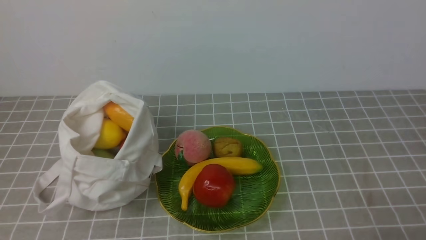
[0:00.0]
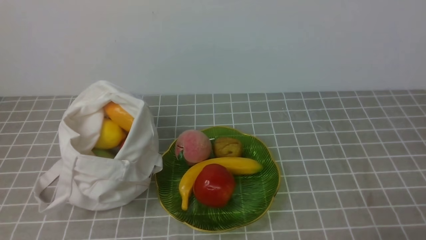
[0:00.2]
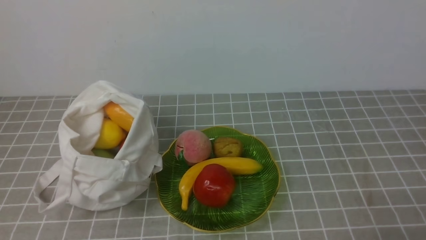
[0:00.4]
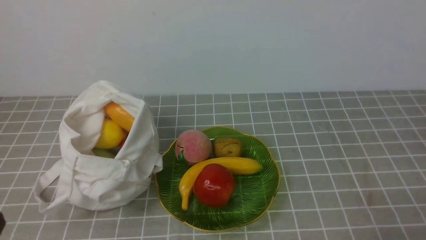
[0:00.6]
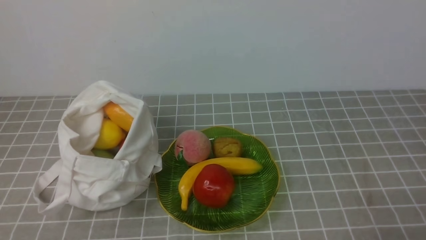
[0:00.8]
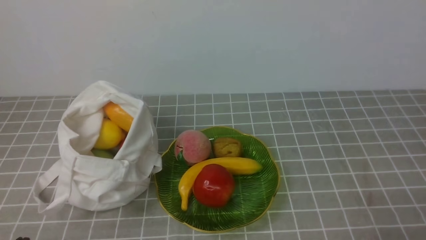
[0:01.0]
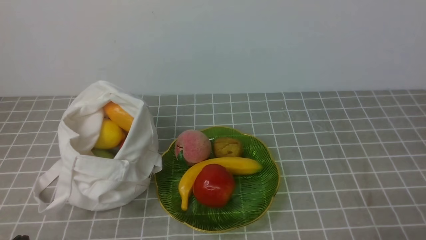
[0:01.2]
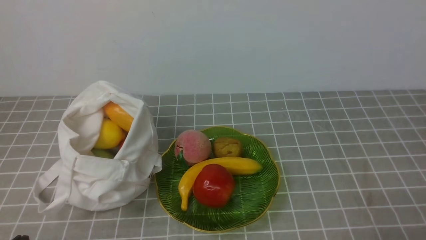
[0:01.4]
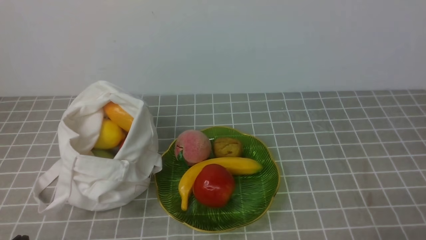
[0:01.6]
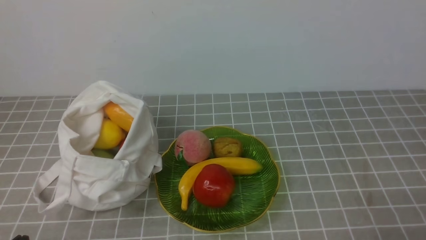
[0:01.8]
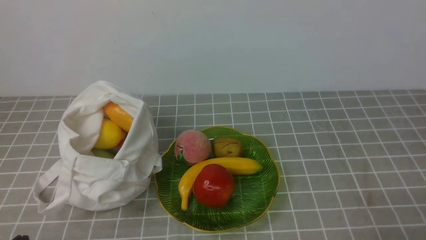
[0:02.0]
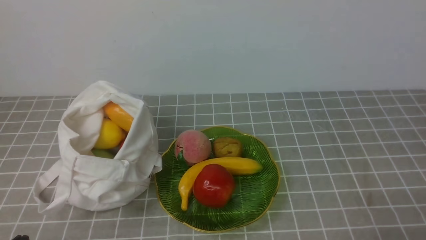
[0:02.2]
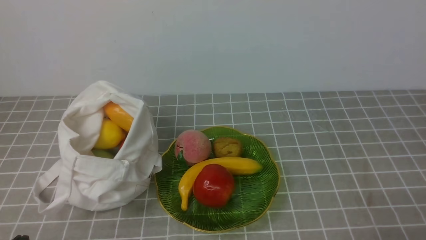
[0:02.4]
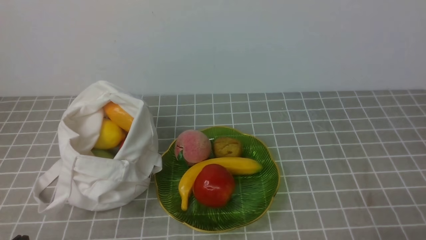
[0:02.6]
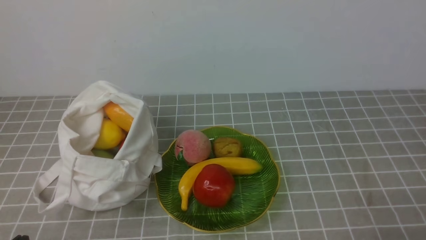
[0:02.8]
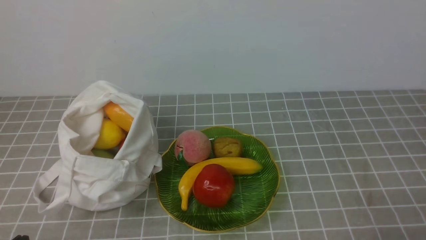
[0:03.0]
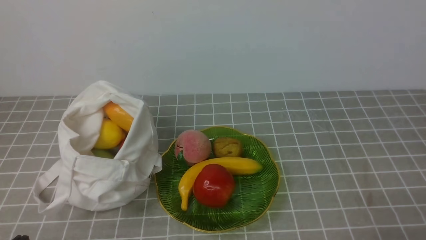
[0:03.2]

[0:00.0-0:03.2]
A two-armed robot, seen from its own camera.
0:01.6 to 0:03.2: Both grippers stay put.

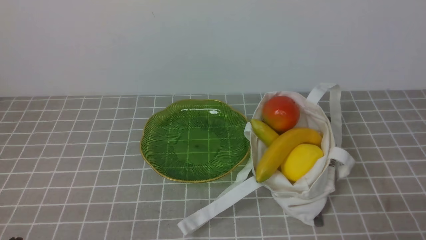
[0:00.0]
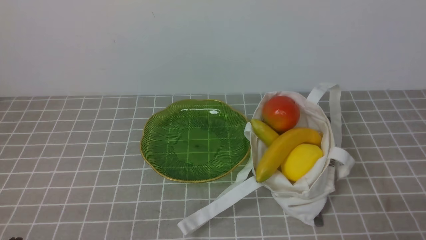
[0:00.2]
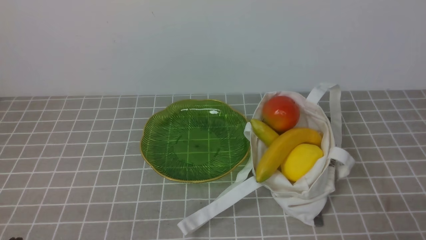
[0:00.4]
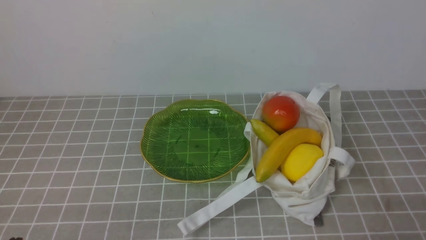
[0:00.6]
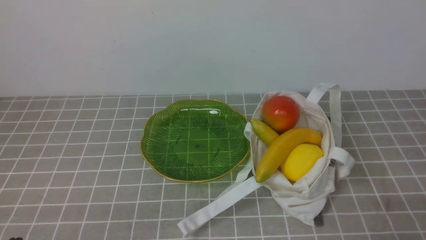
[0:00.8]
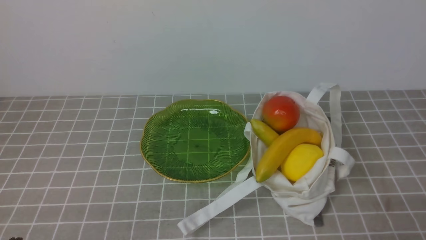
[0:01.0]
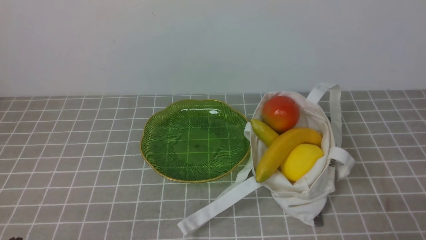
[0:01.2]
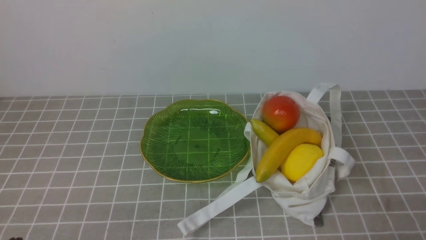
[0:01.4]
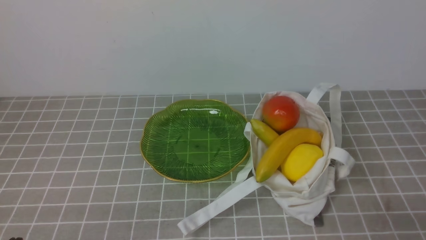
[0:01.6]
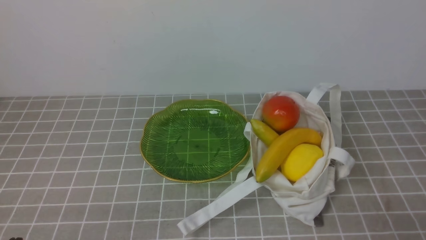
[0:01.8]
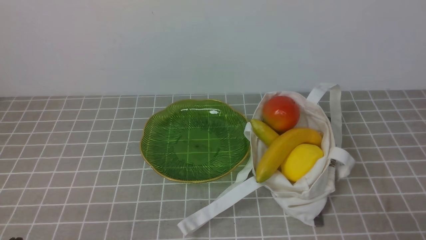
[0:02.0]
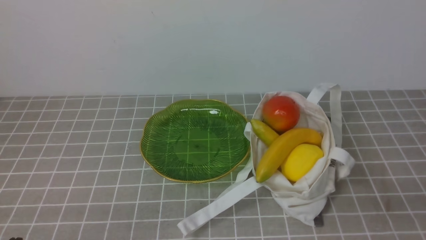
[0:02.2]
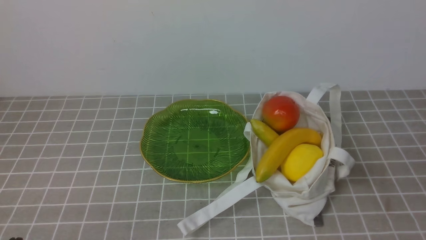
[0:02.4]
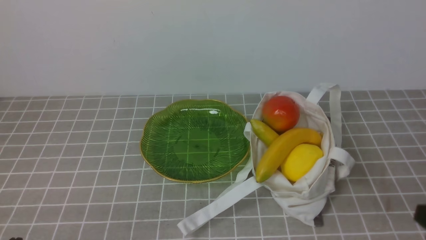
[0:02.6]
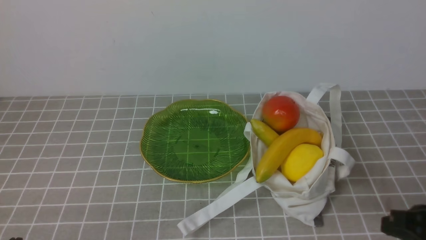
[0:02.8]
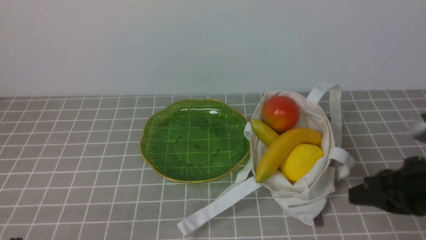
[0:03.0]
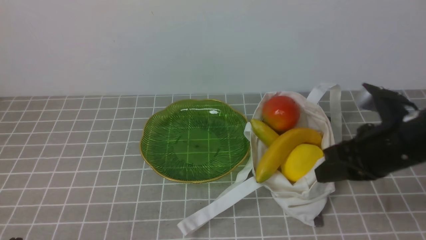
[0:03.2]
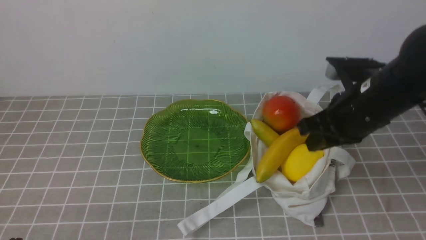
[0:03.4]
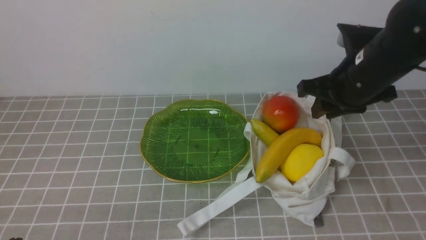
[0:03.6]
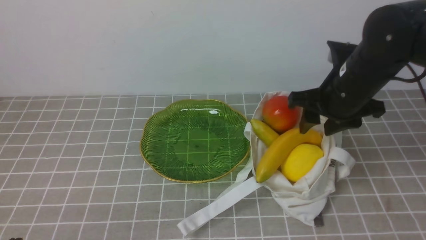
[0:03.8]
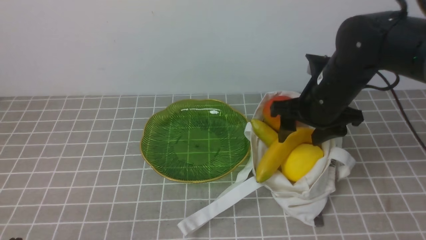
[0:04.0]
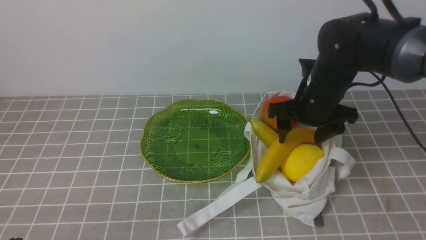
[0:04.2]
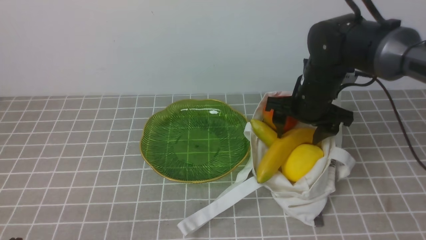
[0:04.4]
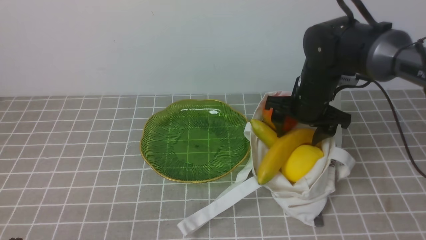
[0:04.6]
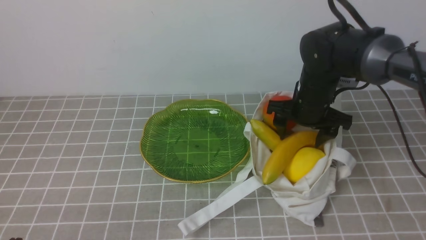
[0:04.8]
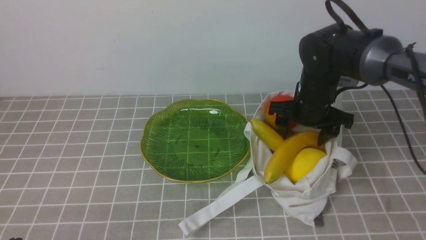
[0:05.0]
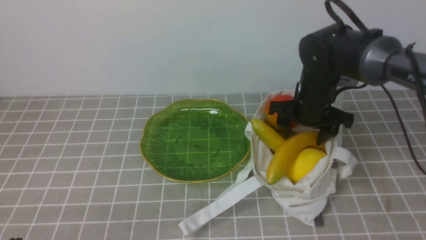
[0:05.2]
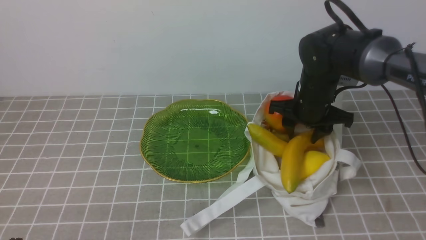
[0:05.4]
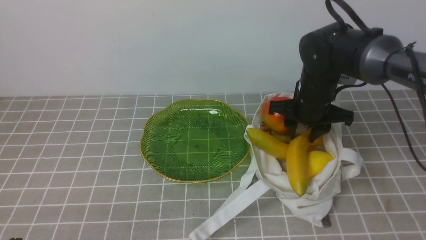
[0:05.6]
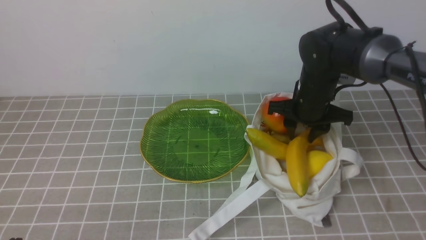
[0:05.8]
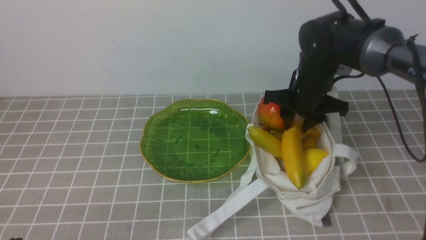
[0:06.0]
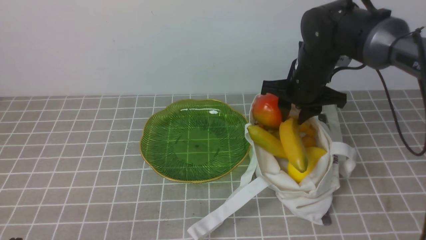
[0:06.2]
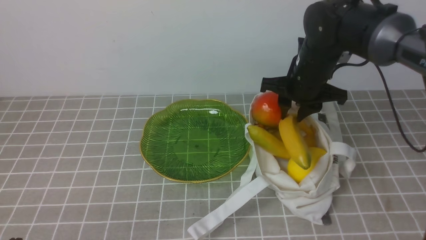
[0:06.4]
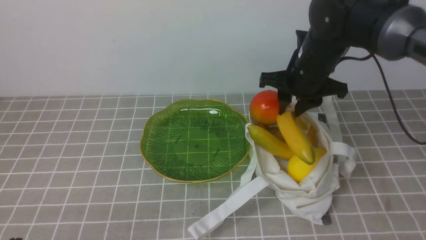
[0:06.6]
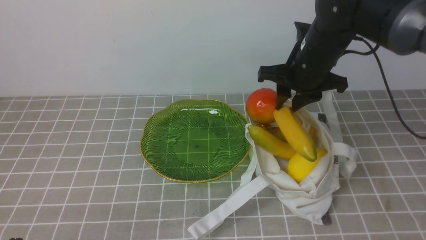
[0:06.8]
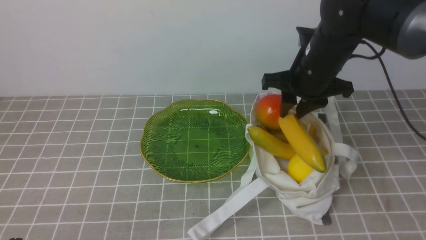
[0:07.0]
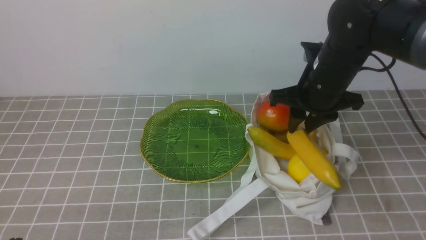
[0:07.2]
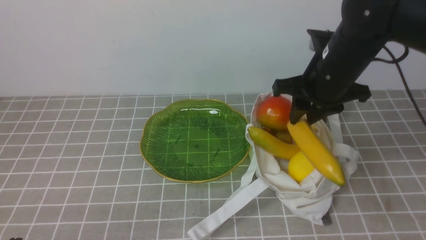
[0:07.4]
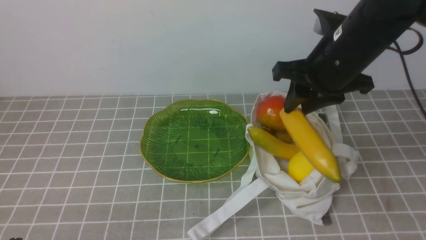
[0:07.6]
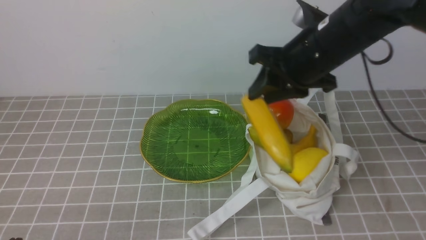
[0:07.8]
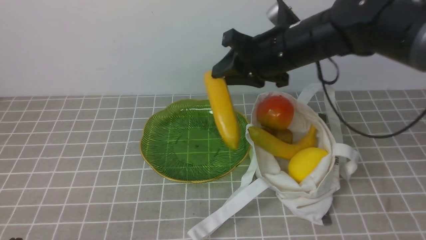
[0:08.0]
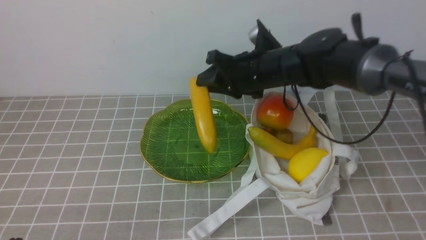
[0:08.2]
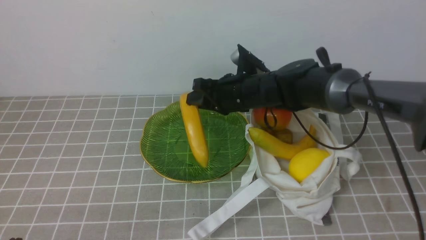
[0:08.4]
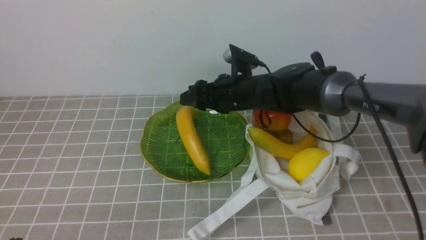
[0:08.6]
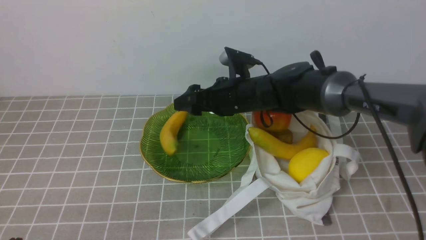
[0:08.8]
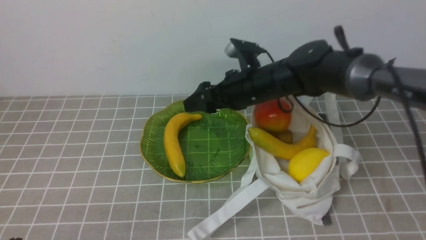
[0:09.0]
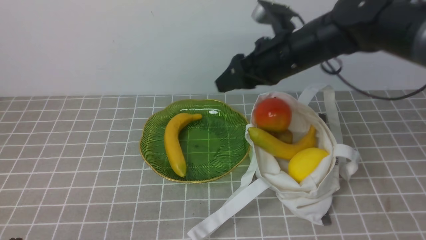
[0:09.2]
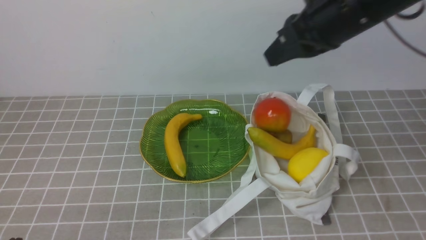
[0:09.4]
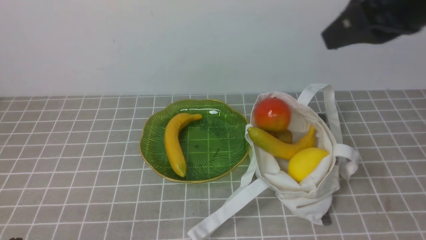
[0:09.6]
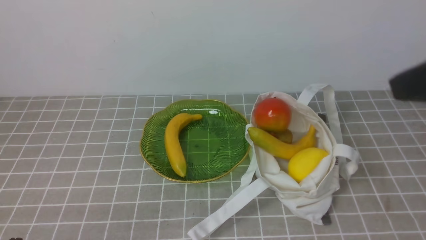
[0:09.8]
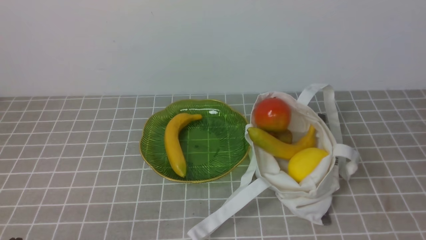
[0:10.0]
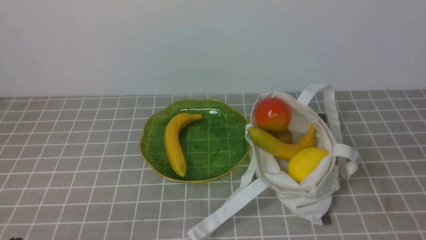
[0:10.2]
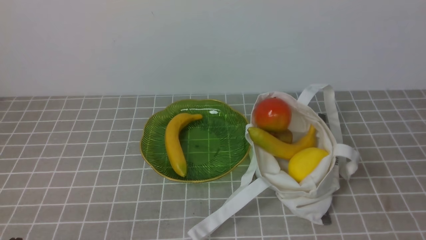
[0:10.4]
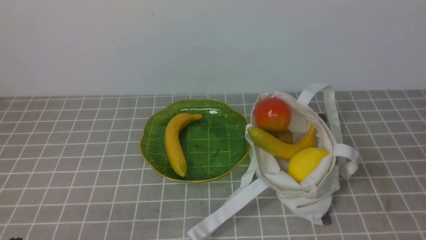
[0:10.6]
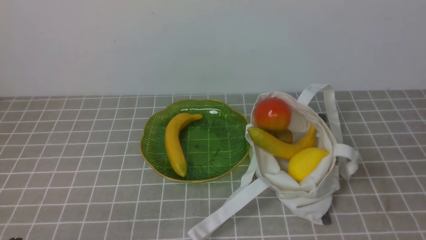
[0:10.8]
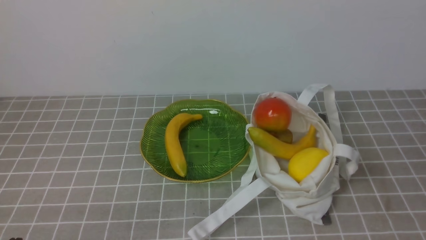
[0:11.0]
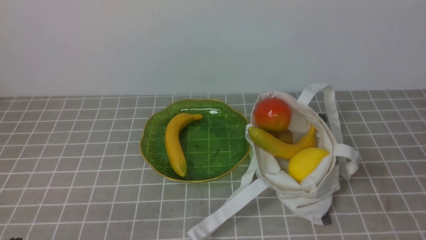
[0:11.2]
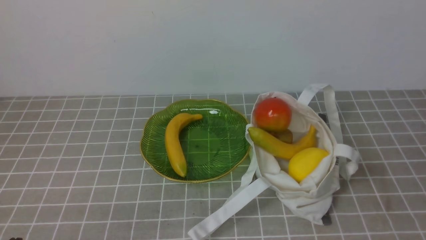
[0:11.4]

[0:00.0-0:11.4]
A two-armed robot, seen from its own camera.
Step, 0:00.0 to 0:06.2: use the right arm to grab a banana from the bag.
Step, 0:06.4 to 0:09.2: use the right arm to put the banana into the empty plate on the right.
0:01.4 to 0:02.8: The right gripper moves forward and upward, approximately 10 cm.
0:02.8 to 0:04.2: The right gripper travels forward and to the left by some 25 cm, and opens.
0:04.2 to 0:05.6: The right gripper closes its fingers.
0:05.6 to 0:07.2: The right gripper goes some 10 cm upward.
0:07.2 to 0:08.6: The right gripper goes about 15 cm to the left, downward and forward, and opens its fingers.
0:08.6 to 0:10.0: The right gripper goes roughly 40 cm backward, to the right and upward, and closes up.

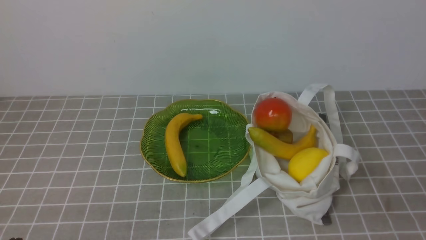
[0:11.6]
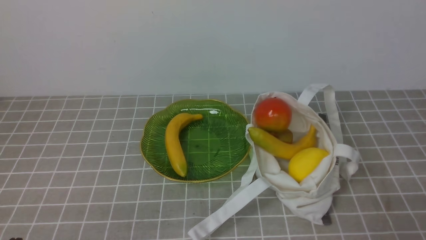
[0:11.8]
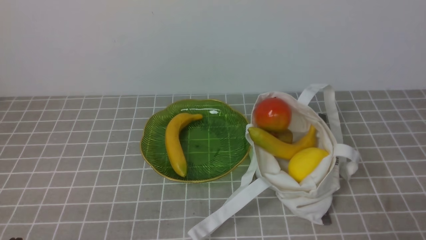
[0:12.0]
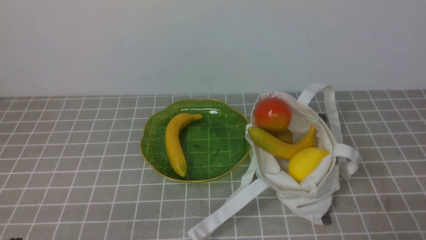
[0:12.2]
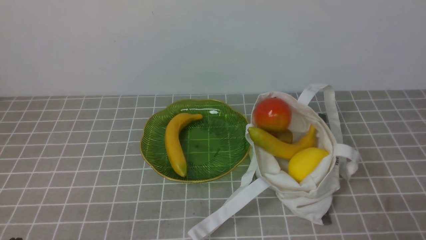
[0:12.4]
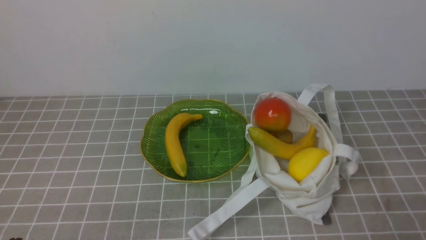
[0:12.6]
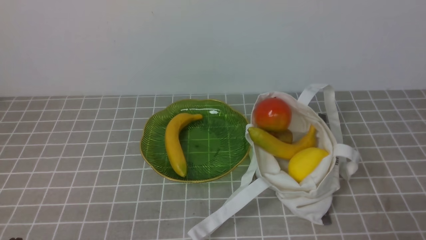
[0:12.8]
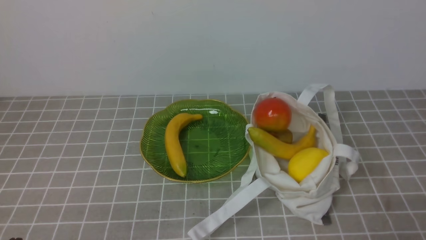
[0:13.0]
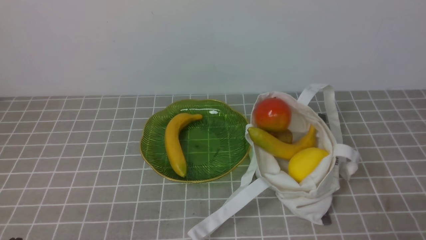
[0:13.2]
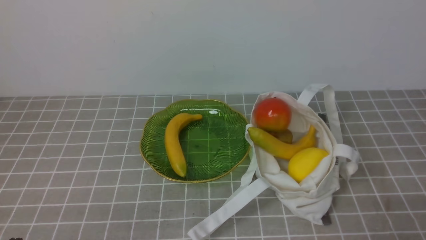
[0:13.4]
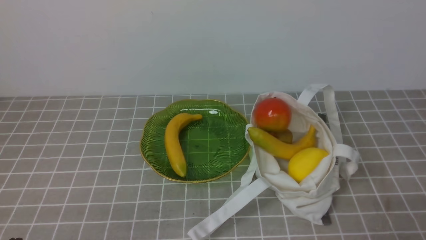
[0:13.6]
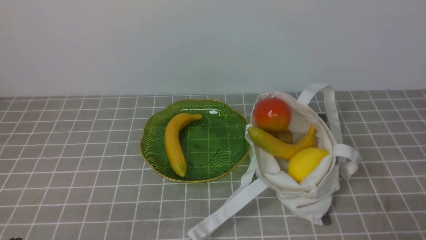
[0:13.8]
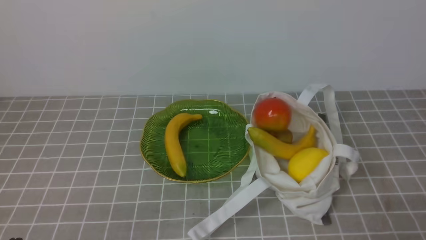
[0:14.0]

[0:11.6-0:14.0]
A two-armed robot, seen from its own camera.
0:12.8 to 0:14.0: Neither gripper changes place.
